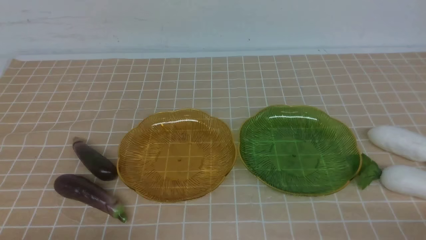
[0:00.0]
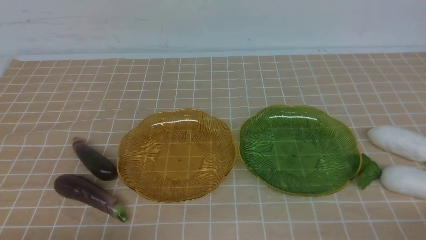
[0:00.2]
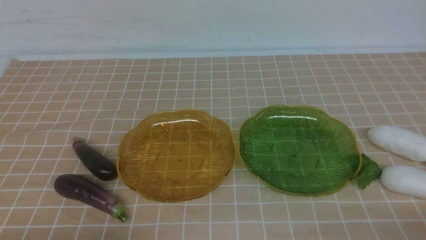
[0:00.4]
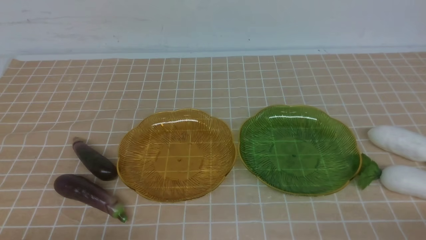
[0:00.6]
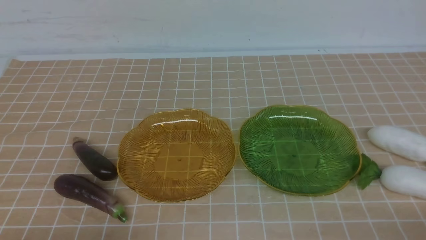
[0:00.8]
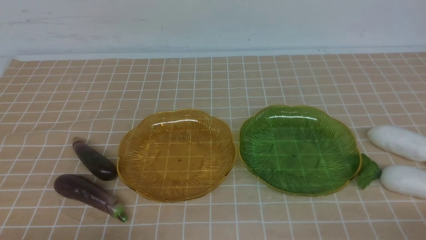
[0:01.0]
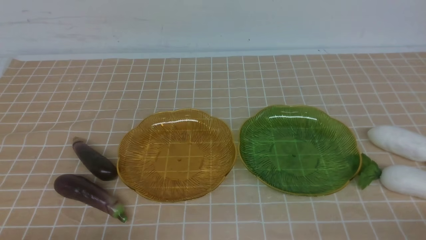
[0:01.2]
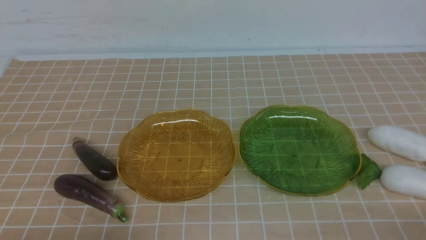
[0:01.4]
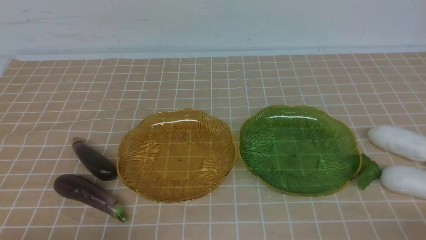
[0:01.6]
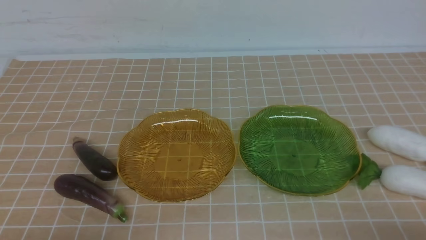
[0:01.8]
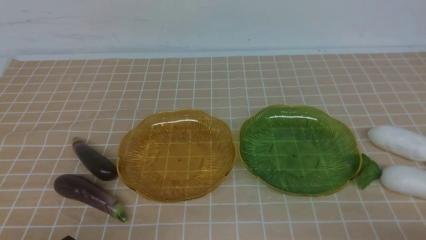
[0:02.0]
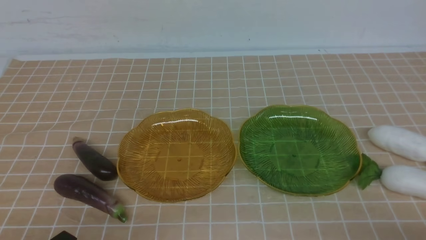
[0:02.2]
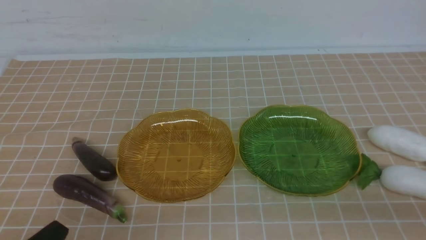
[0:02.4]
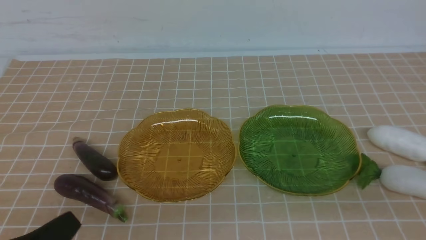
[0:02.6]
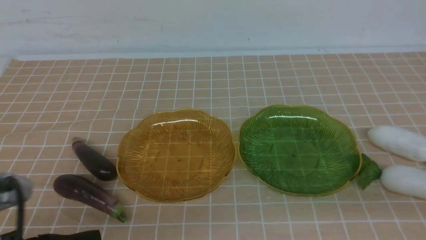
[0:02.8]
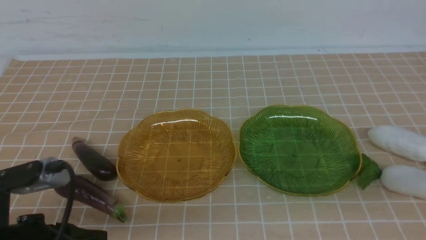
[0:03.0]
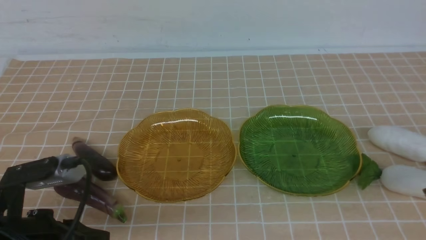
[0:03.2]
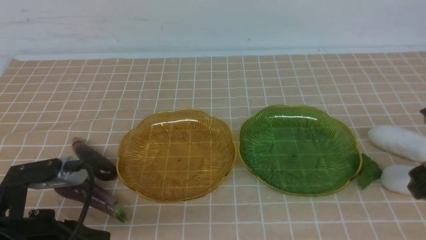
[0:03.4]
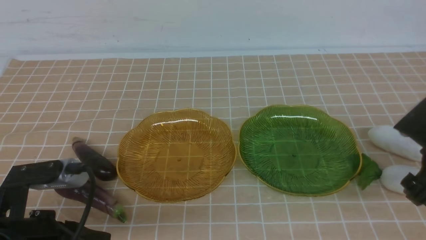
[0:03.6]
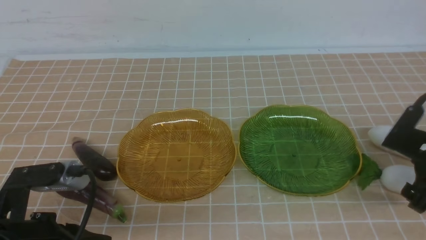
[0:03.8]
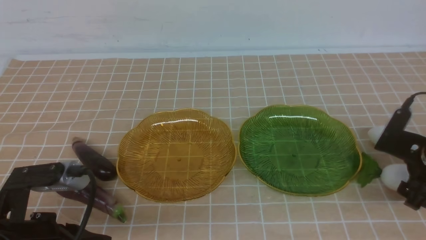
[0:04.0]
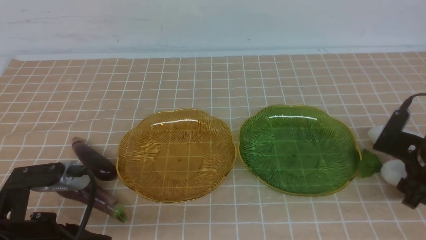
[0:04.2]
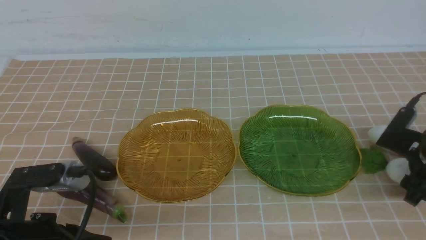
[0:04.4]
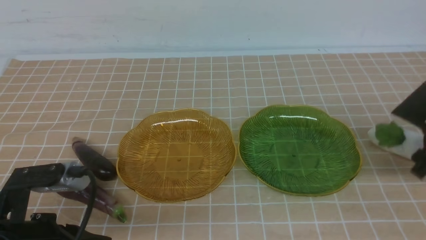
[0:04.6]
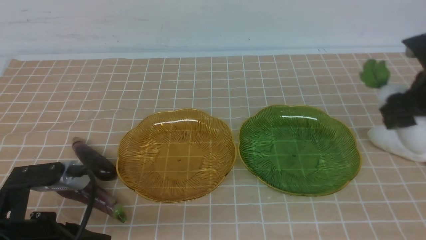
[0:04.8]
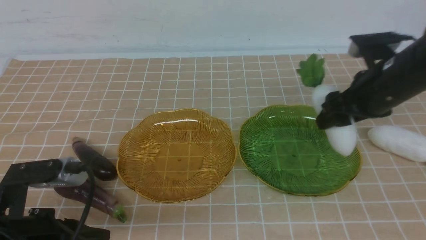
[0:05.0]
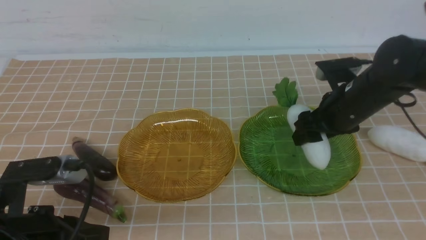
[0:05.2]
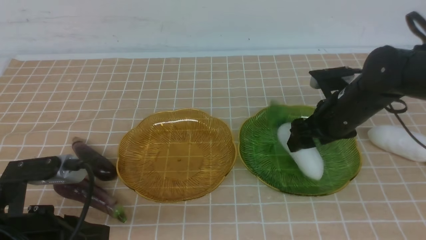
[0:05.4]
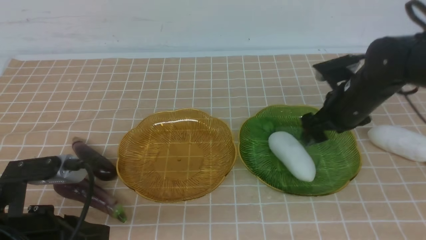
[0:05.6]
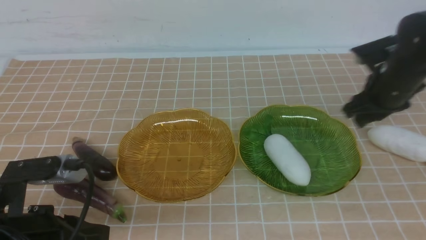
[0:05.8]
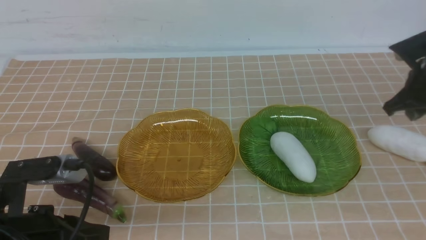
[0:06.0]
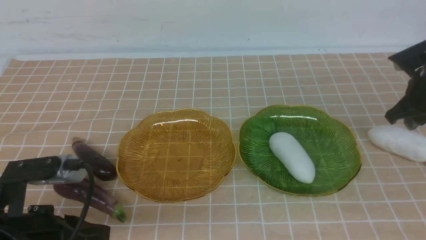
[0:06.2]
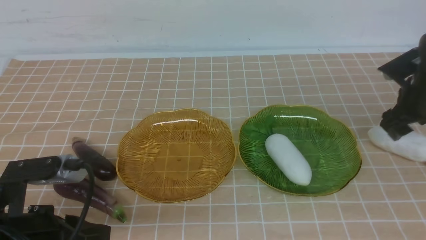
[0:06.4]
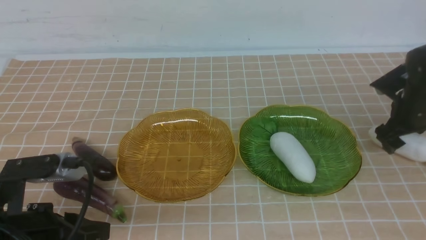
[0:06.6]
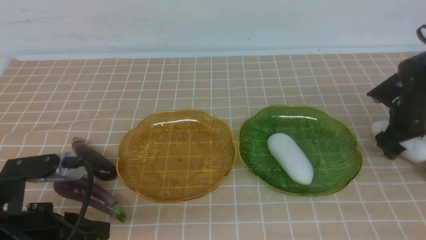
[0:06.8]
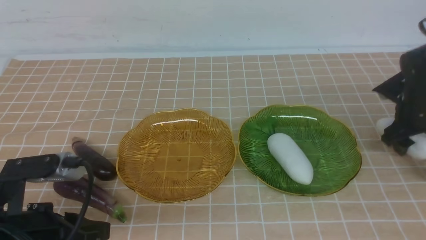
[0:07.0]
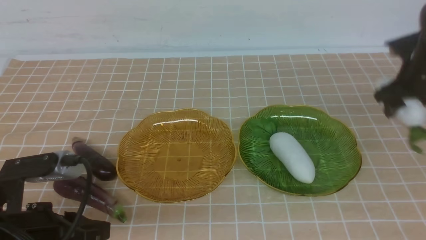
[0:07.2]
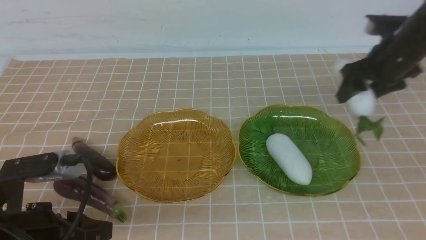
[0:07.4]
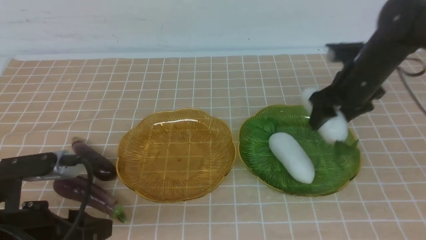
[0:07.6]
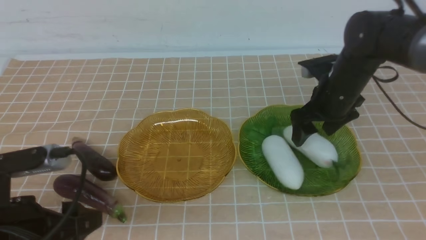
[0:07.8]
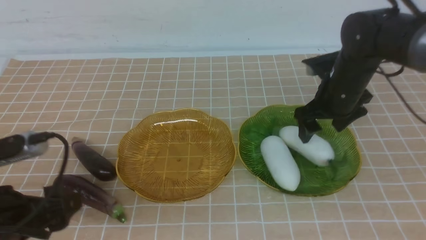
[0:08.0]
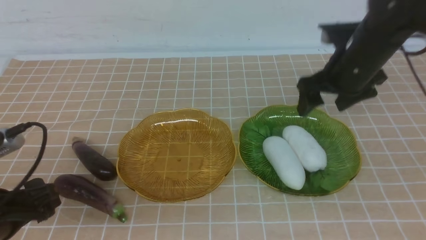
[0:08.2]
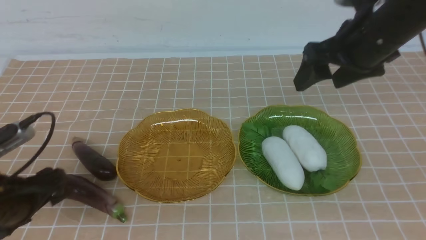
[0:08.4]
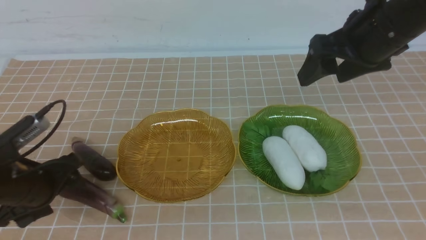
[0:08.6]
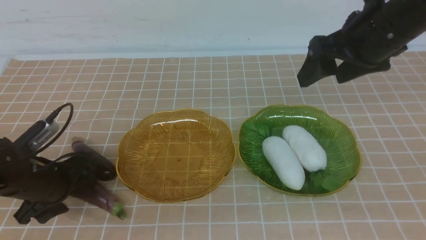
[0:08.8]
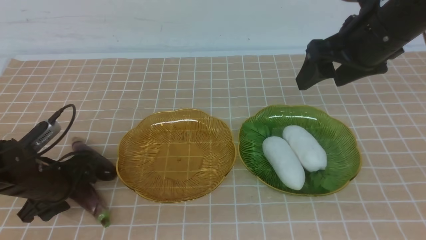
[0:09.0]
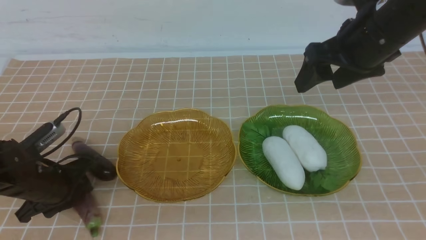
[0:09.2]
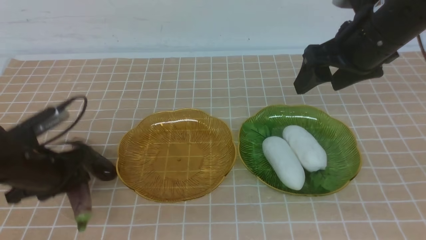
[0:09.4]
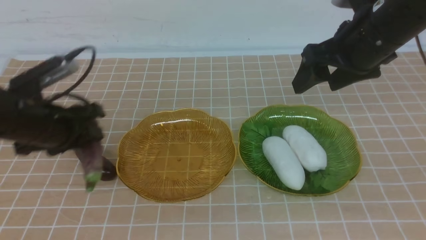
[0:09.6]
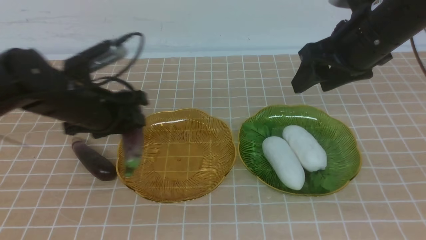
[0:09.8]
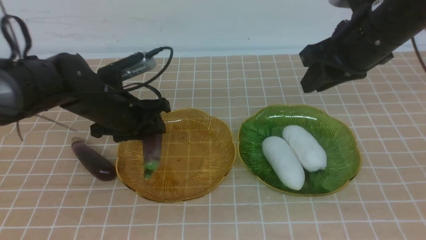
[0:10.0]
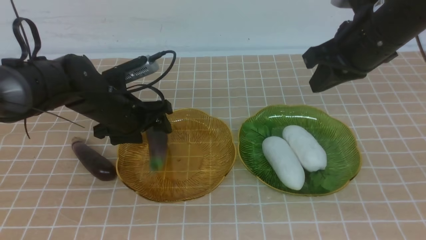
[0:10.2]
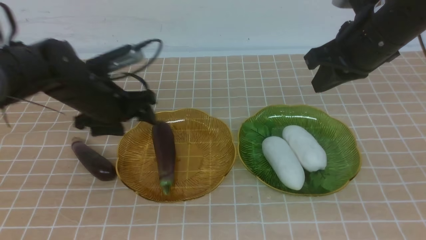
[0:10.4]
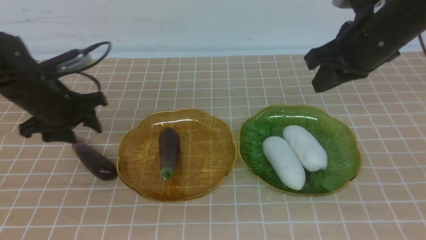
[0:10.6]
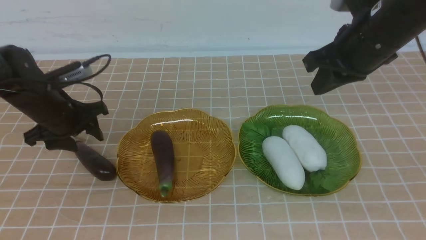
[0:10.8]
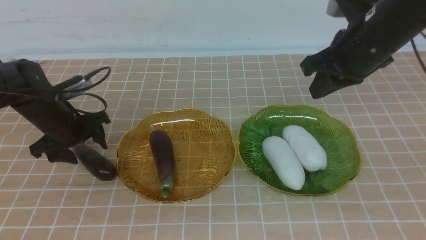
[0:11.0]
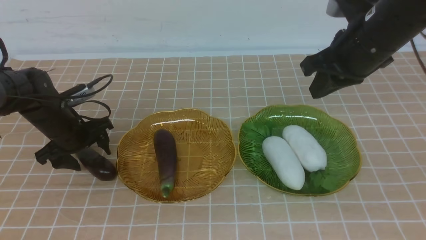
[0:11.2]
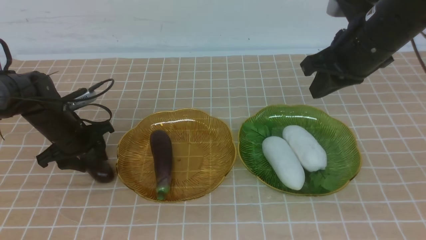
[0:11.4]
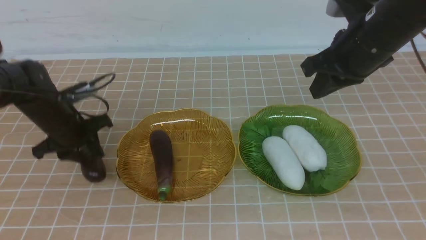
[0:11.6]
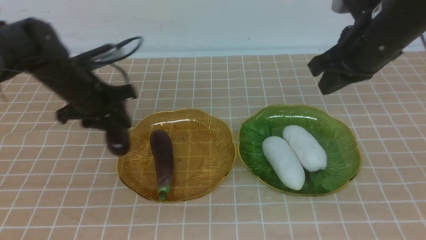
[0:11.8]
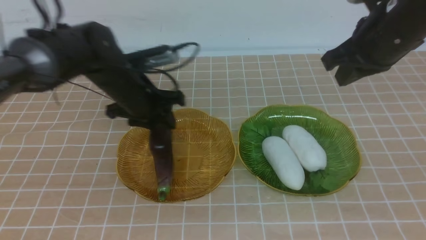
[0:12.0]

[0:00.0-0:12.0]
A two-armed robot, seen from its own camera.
Step, 0:00.0 to 0:05.4: use the right arm to grab a radish and put it into the right plate.
Step, 0:05.8 to 0:08.2: use the right arm to grab a radish and put it into the right plate.
0:01.6 to 0:03.0: The right gripper is displaced forward and upward by approximately 20 cm, and opens up; the left gripper heads upward and forward, covering about 10 cm.
0:03.0 to 0:04.4: The right gripper is displaced forward by some 10 cm, and reaches some 10 cm downward, then returns.
0:04.4 to 0:06.0: The right gripper is displaced forward by about 5 cm, travels to the left and back again, some 10 cm each way, and closes its fingers.
0:06.0 to 0:07.6: The left gripper opens its fingers. The right gripper shifts some 10 cm to the left, and opens its fingers.
0:07.6 to 0:09.0: The left gripper moves forward, about 15 cm, and closes its fingers. Meanwhile the right gripper travels upward and backward by approximately 15 cm.
0:09.0 to 0:10.4: The right gripper closes up, while the left gripper goes roughly 10 cm forward, and moves about 10 cm to the right and comes back.
0:10.4 to 0:12.0: The left gripper shifts approximately 10 cm to the right.

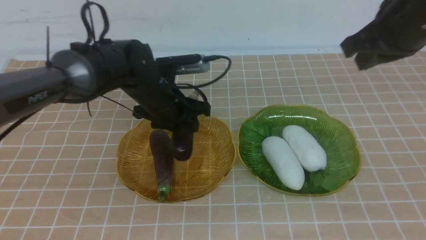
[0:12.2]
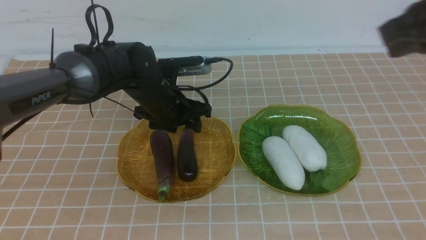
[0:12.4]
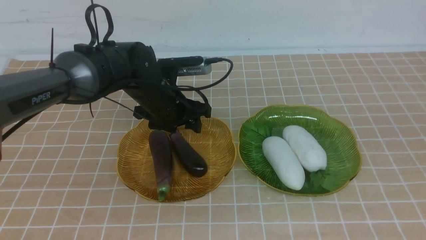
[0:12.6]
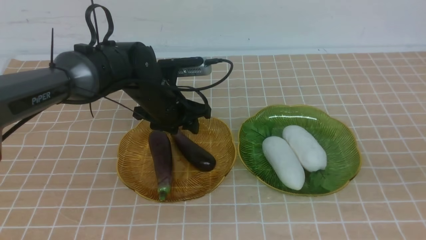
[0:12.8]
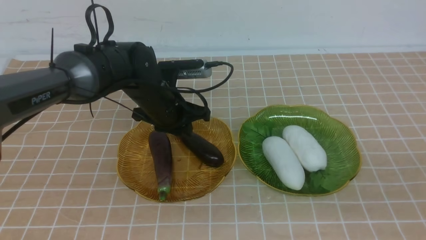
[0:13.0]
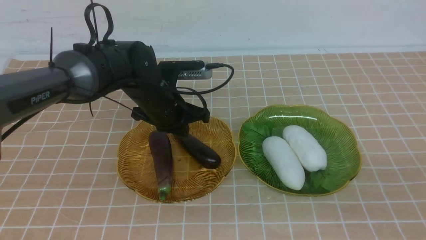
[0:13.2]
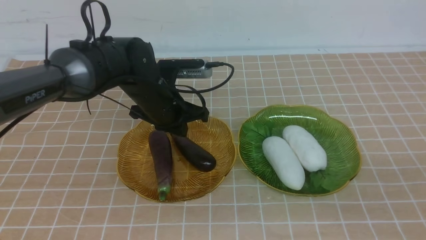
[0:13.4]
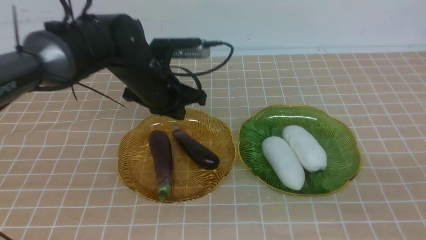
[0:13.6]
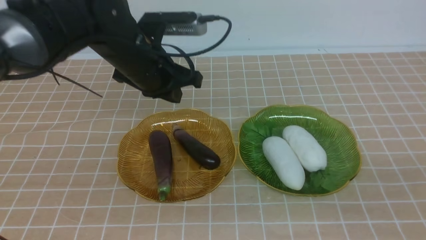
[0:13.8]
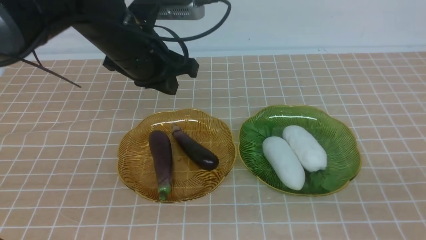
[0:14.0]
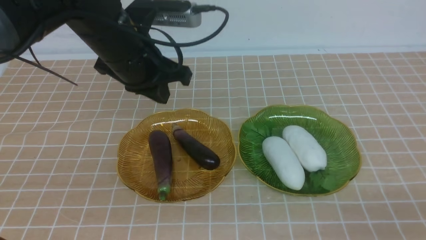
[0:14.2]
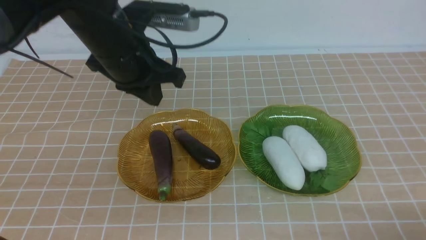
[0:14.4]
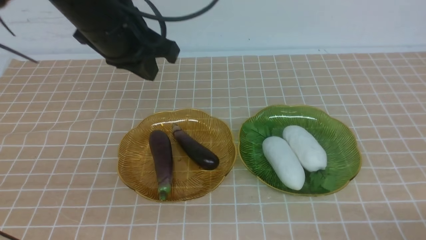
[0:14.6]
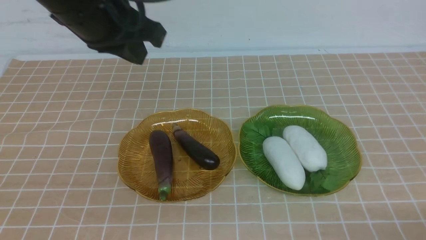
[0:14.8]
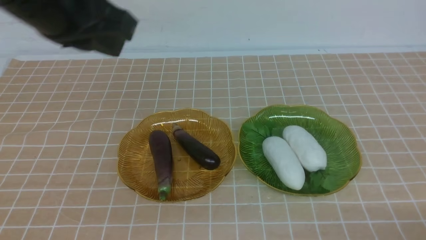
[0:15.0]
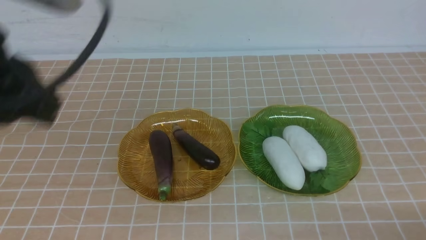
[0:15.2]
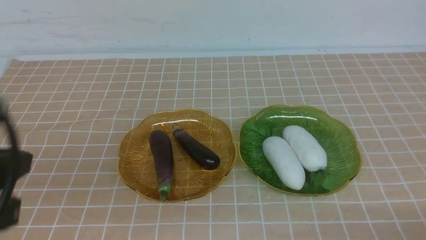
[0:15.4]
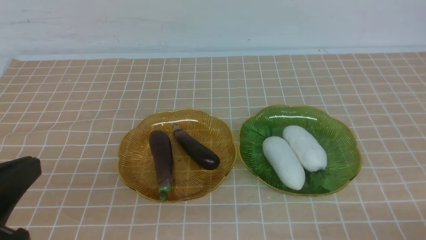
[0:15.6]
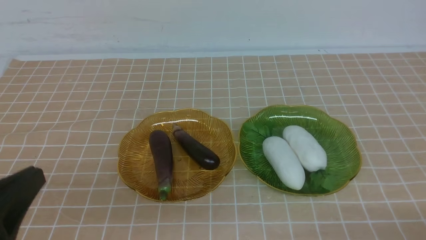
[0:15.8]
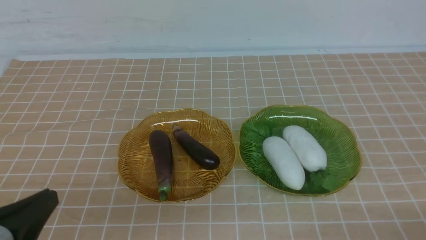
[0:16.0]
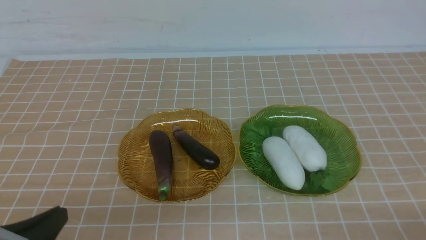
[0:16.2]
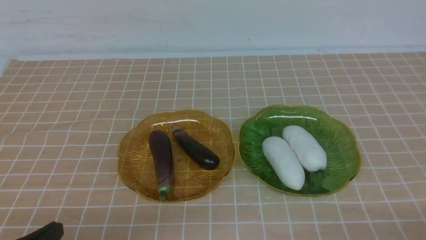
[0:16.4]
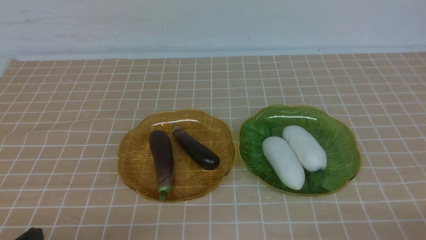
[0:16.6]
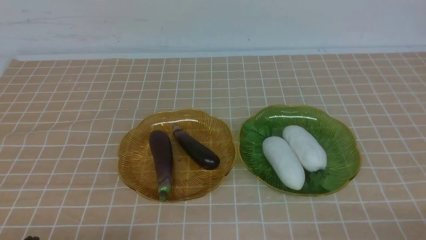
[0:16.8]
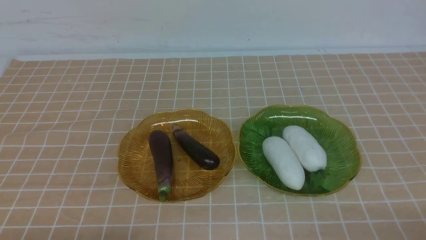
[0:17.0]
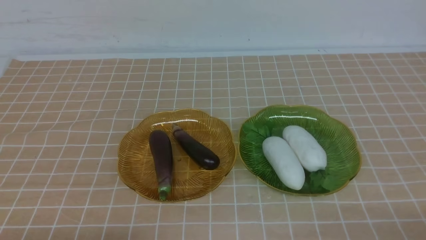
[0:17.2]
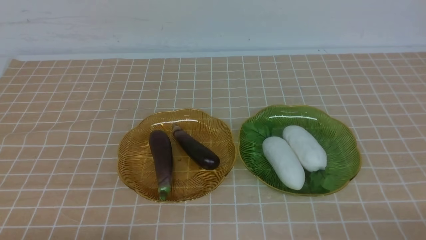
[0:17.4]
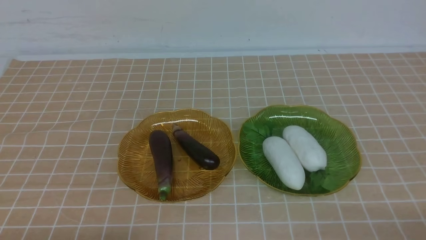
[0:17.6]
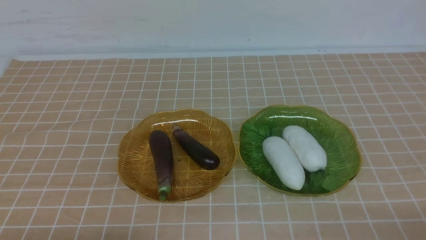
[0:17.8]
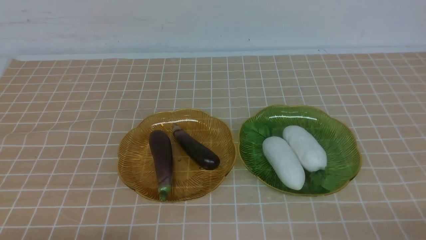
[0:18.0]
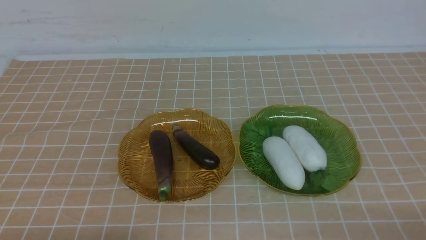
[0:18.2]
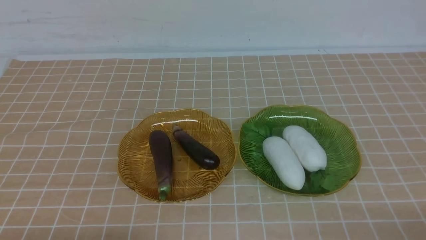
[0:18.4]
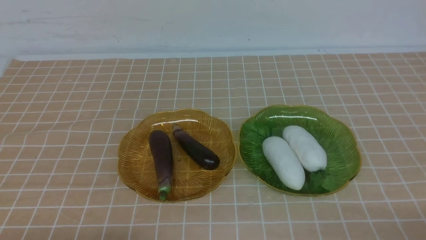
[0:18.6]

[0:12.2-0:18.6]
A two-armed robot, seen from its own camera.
0:12.2 to 0:13.8: The right gripper shifts roughly 25 cm backward and downward. Meanwhile the left gripper heads upward, covering roughly 10 cm, and closes.
0:13.8 to 0:15.4: The left gripper moves backward and to the left, roughly 30 cm. The right gripper shifts some 10 cm downward.
0:15.4 to 0:17.0: The left gripper travels downward by approximately 20 cm.
0:17.0 to 0:18.6: The two grippers keep their place.
